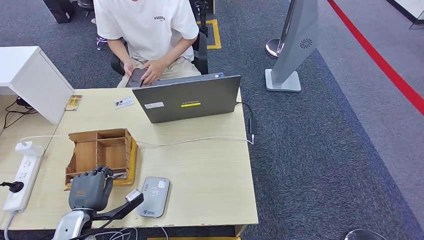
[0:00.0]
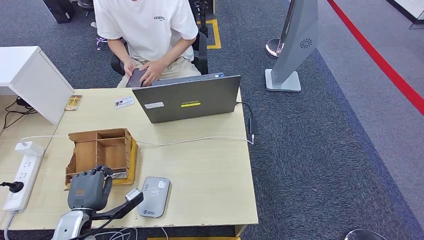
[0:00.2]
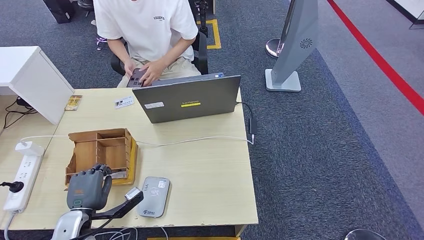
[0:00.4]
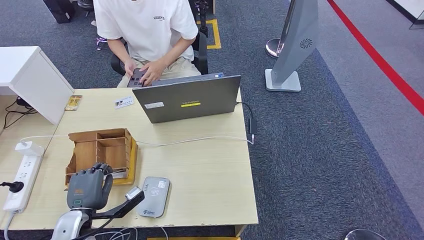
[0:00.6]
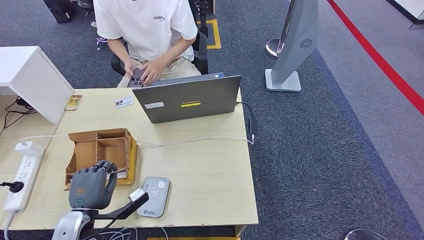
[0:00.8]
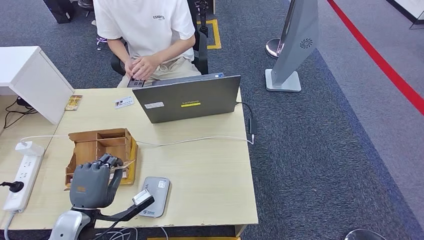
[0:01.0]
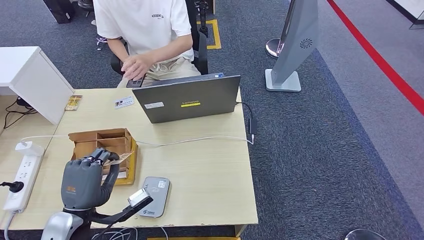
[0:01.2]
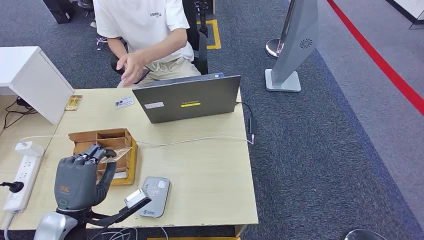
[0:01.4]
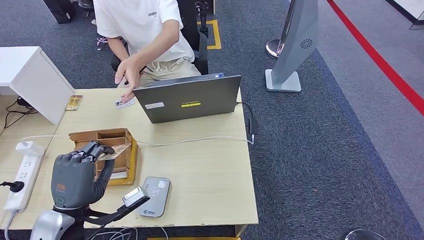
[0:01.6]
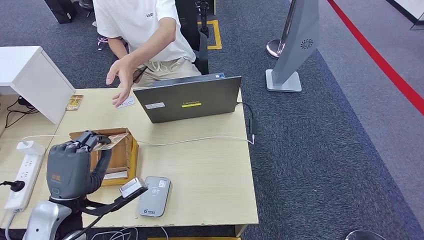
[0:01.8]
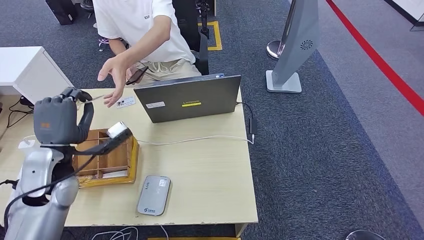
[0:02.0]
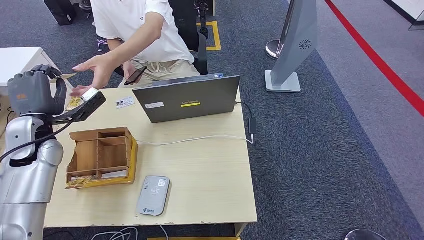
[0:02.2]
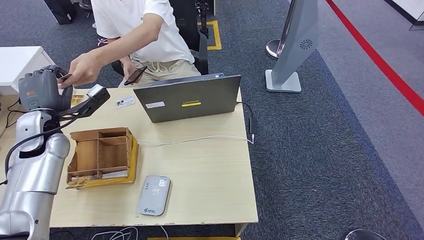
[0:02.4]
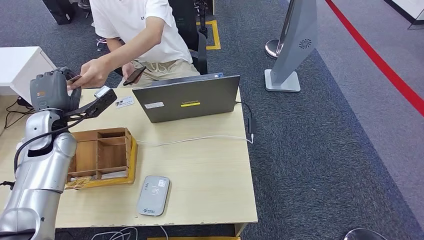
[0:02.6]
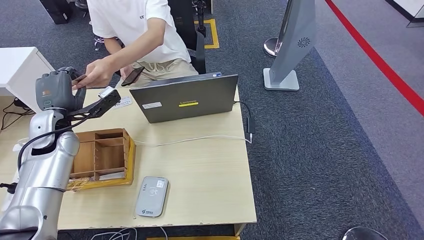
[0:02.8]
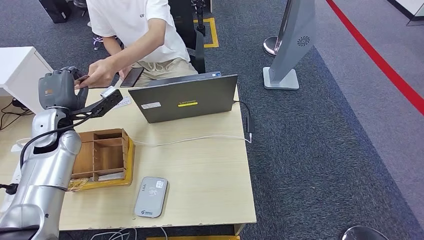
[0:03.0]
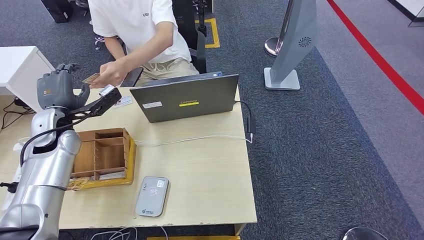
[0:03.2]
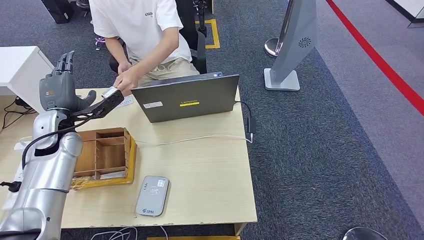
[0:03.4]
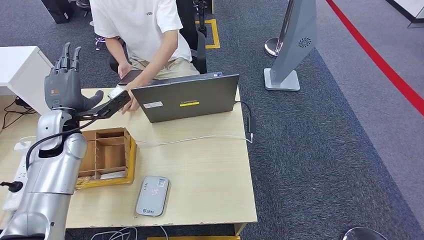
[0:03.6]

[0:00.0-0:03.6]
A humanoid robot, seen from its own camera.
Step, 0.2 to 3.6 s: Hand the room key to the person.
0.0 to 1.8 s: The left hand goes about 15 cm upward.

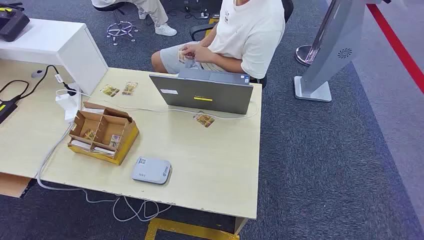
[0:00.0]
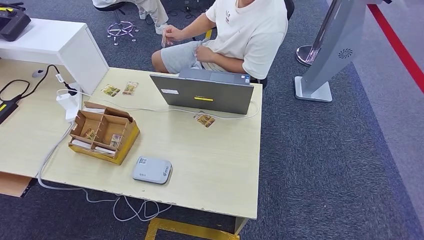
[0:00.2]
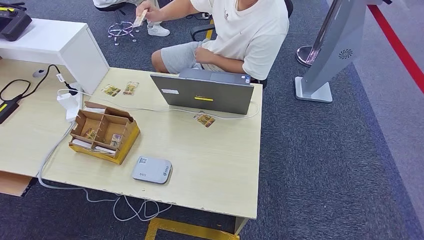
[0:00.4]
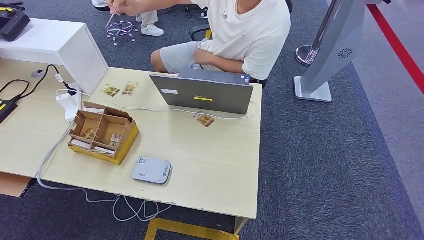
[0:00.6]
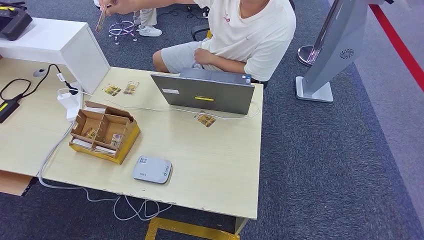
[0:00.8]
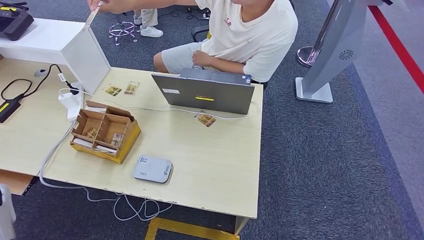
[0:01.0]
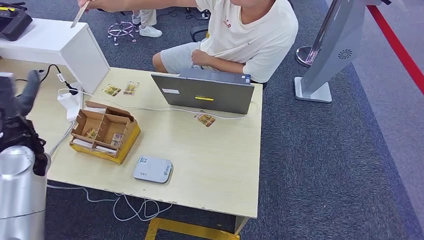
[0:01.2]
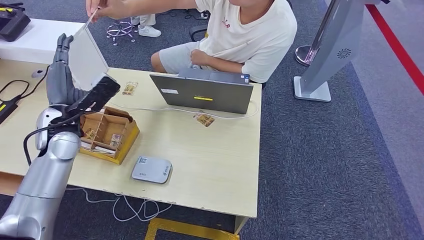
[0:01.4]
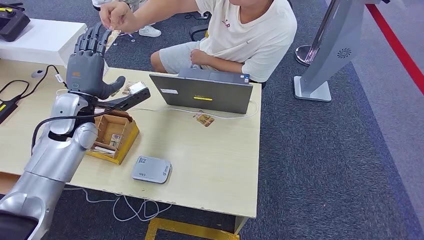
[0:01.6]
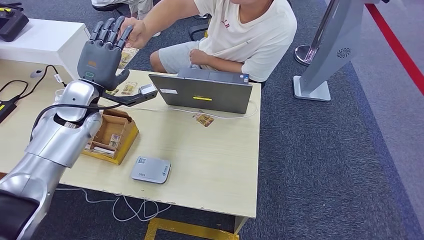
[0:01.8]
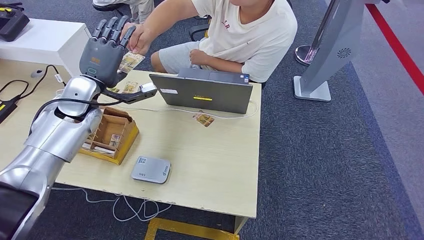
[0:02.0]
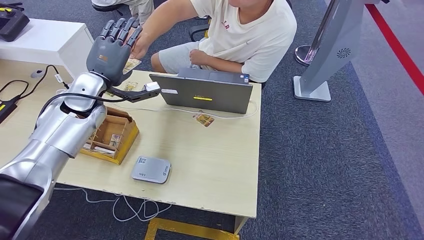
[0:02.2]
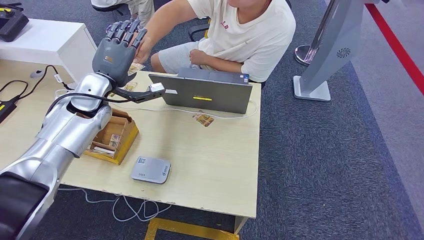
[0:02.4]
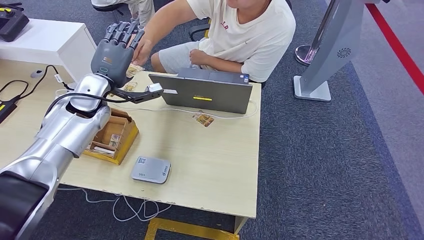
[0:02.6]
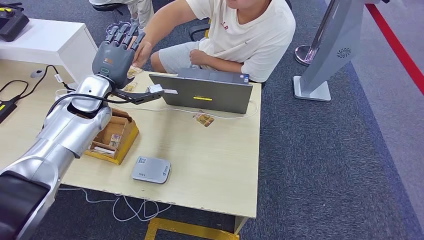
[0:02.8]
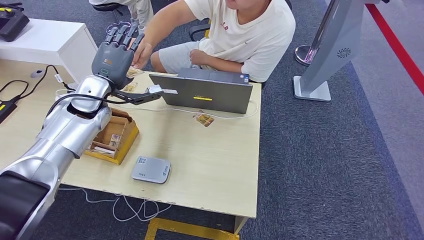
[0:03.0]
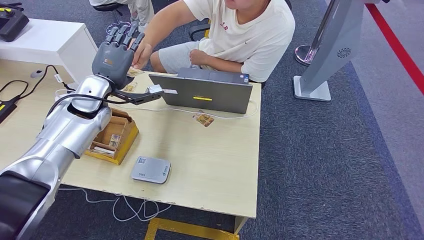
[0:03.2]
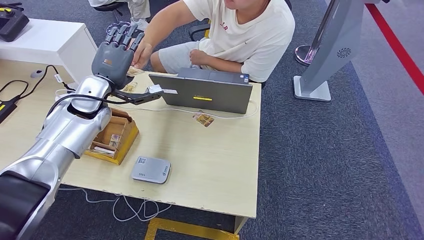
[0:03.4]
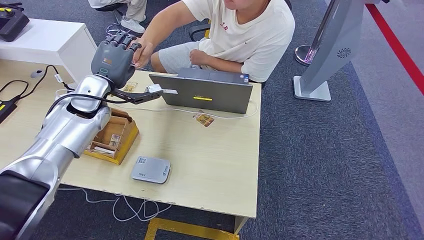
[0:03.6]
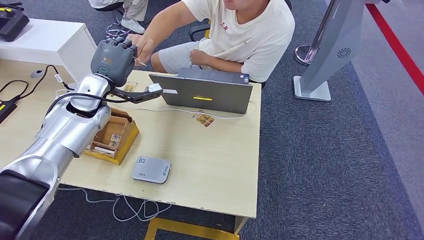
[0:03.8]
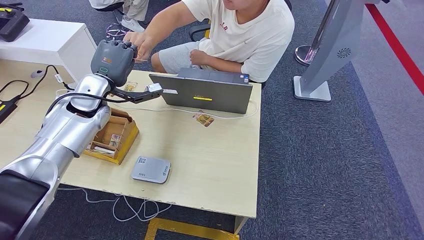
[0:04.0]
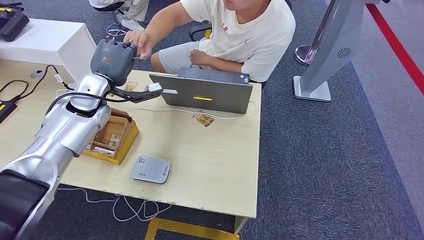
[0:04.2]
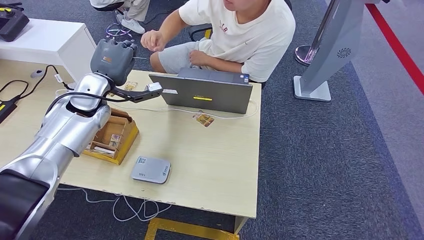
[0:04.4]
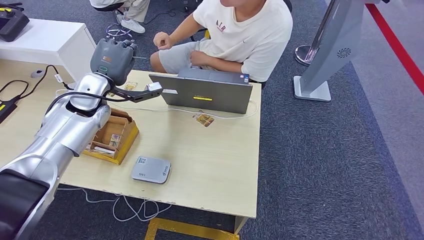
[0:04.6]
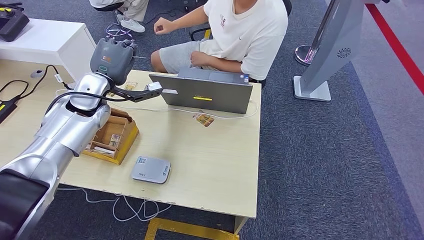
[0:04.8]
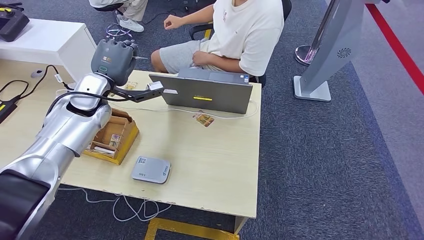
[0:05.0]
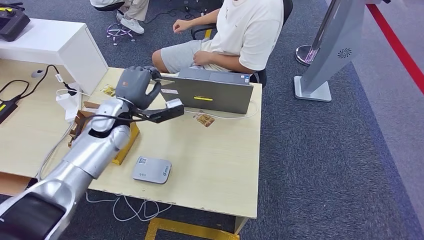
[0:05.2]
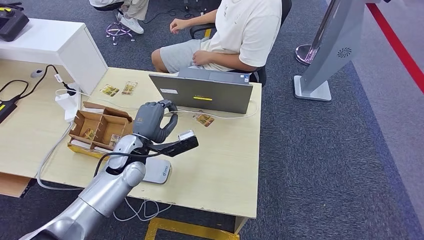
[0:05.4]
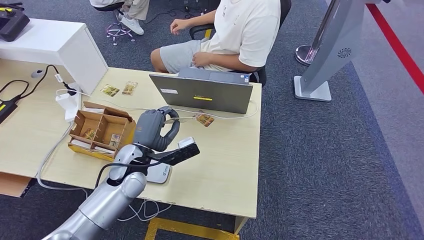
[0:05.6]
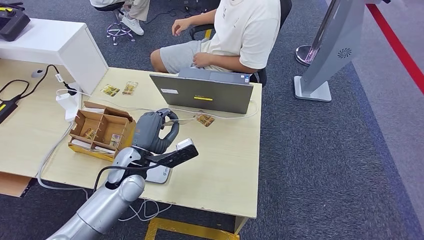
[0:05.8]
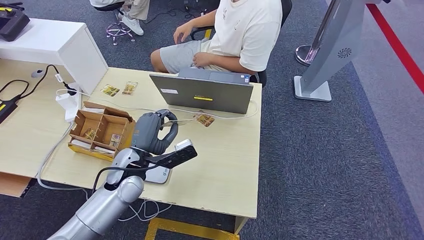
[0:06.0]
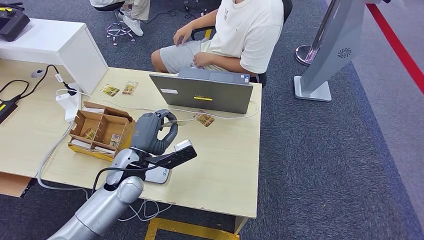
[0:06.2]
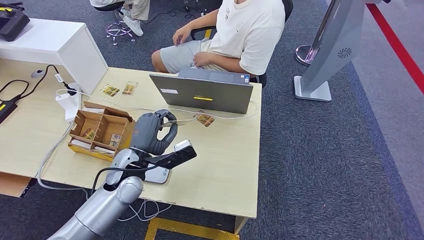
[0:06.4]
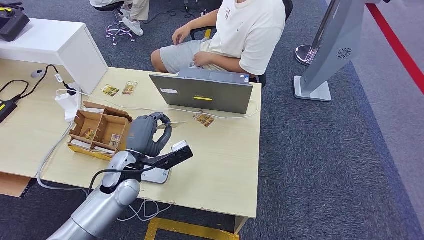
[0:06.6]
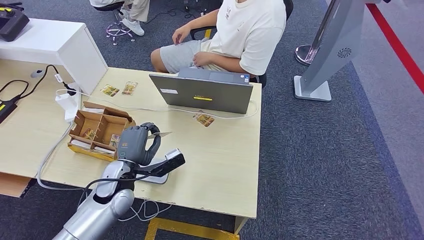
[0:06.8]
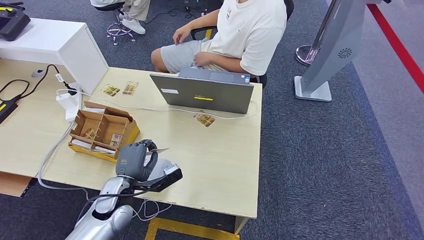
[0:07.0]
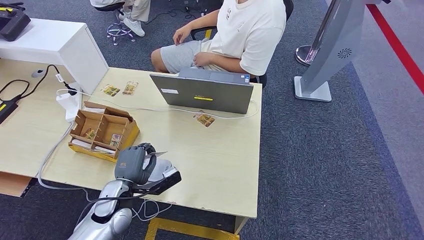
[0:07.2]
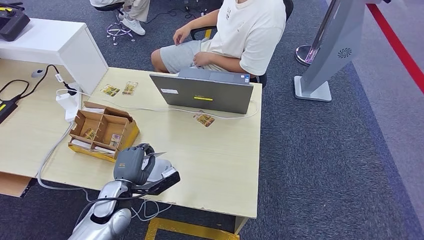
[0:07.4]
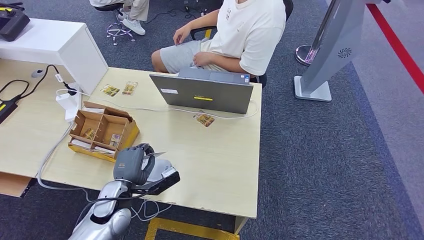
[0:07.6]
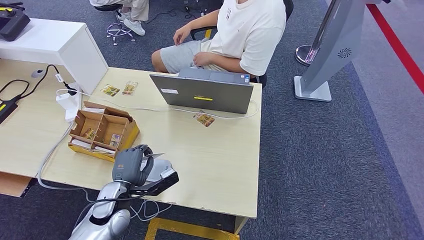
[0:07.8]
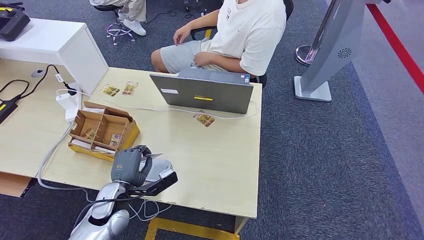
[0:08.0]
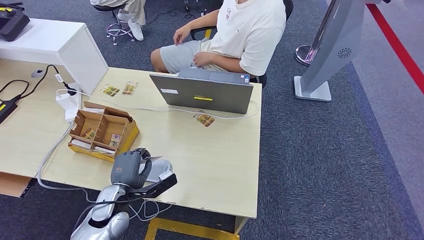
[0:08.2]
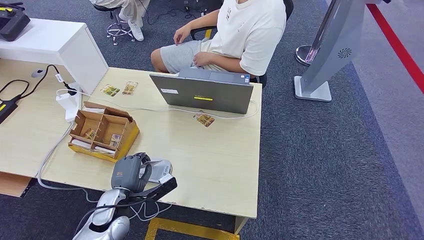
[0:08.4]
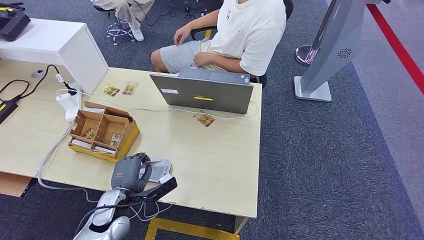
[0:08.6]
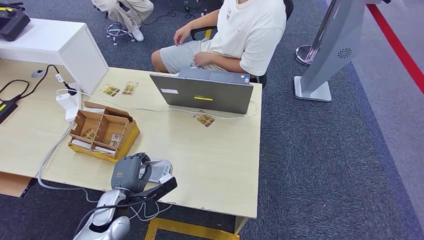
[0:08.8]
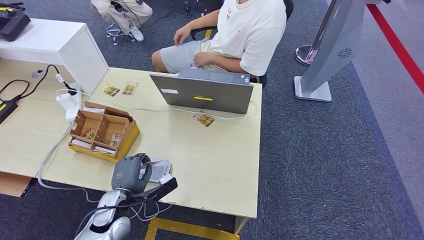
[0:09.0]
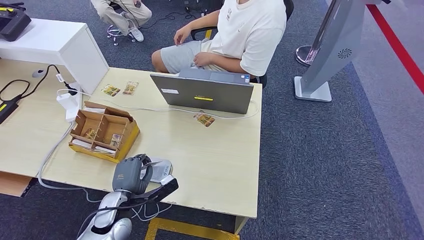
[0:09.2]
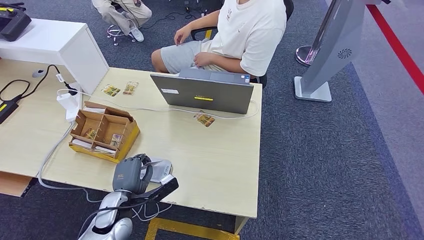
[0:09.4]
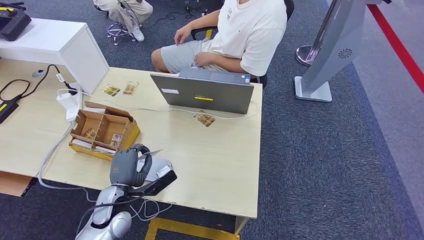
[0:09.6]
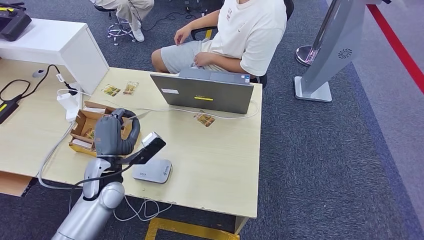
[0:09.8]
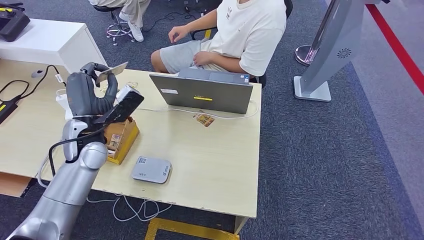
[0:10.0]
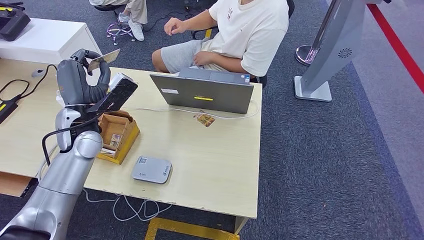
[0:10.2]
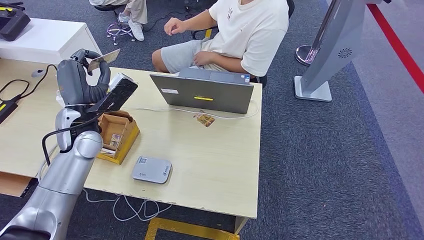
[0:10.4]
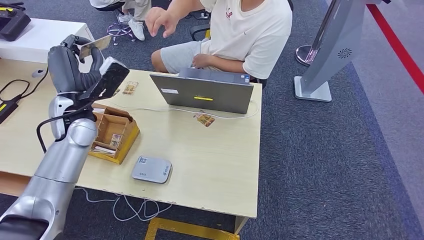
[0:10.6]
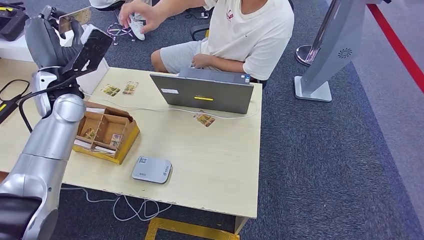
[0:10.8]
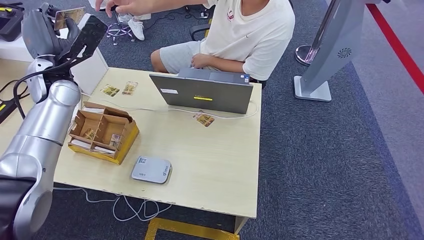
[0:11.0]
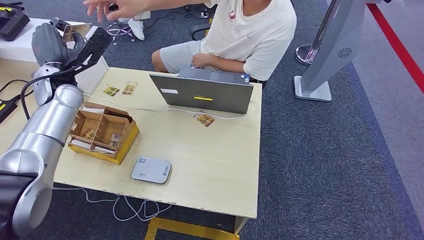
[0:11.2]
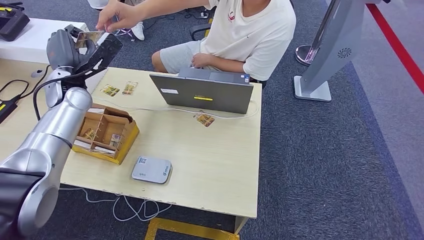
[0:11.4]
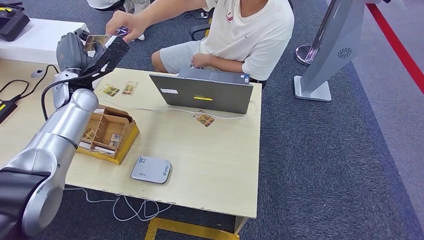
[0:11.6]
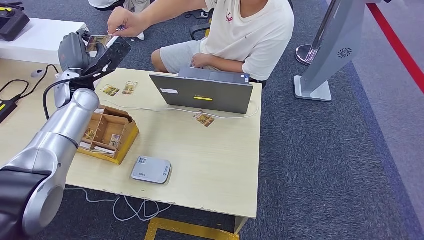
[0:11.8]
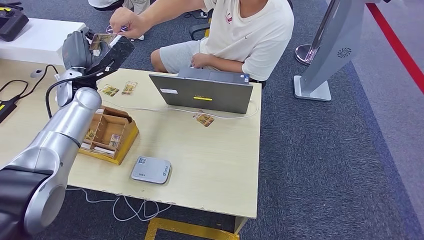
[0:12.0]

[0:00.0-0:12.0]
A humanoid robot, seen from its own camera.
Step, 0.0 to 4.4 s: Take the ID card from the person's hand.
Step, 4.6 to 9.0 s: Place the ID card on the card reader.
1.6 to 3.0 s: The left hand travels forward by about 5 cm.
3.0 to 4.4 s: Neither hand changes place.
6.0 to 7.6 s: The left hand goes roughly 10 cm downward and backward.
7.6 to 9.0 s: The hands make only small movements.
9.0 to 10.4 s: The left hand shifts some 25 cm upward and forward.
10.4 to 12.0 s: The left hand shifts some 10 cm forward.

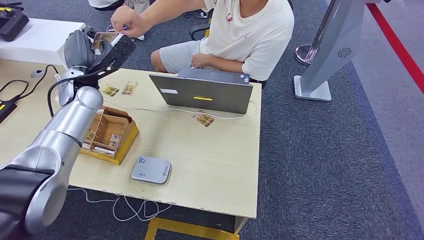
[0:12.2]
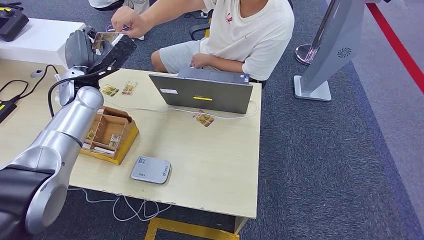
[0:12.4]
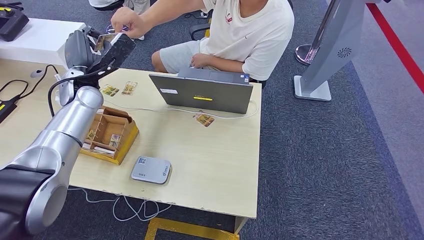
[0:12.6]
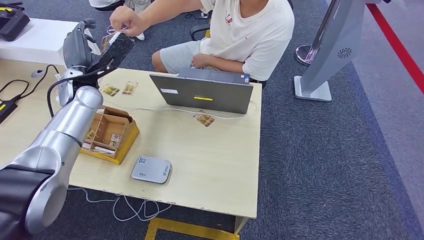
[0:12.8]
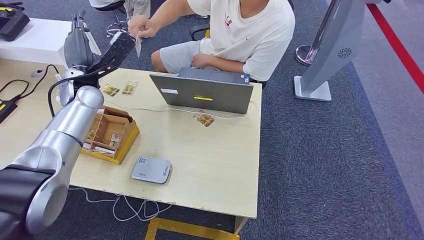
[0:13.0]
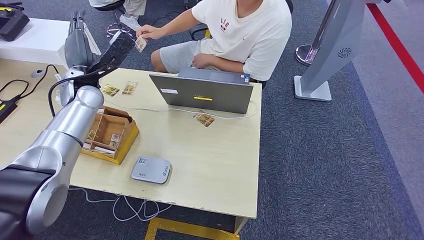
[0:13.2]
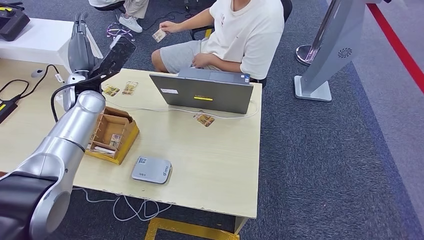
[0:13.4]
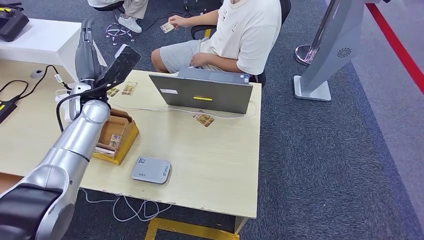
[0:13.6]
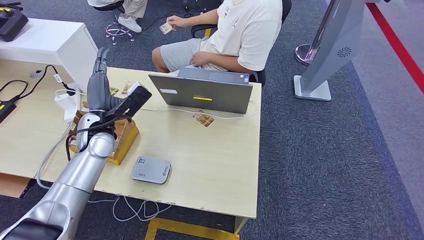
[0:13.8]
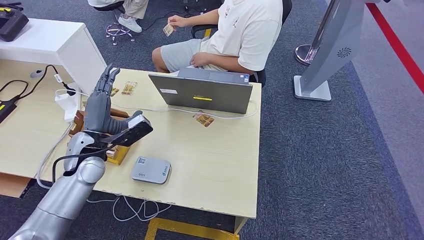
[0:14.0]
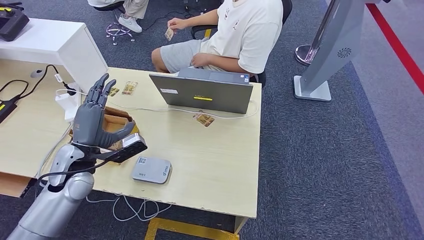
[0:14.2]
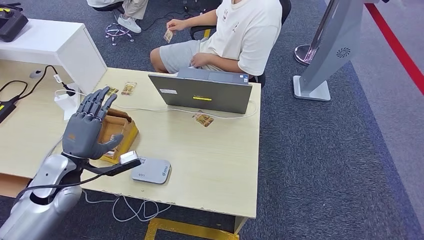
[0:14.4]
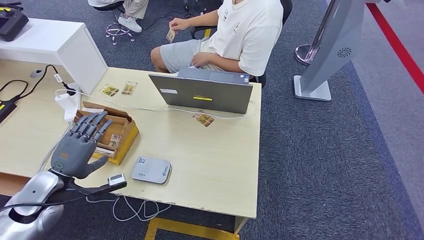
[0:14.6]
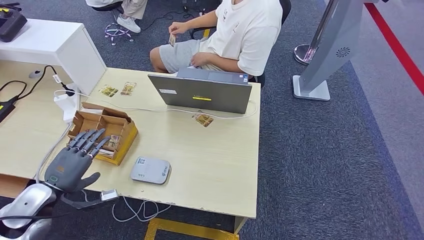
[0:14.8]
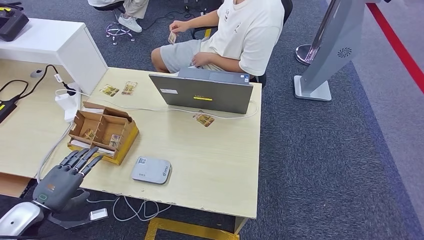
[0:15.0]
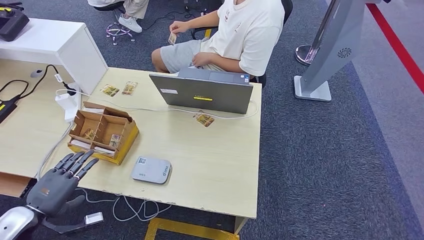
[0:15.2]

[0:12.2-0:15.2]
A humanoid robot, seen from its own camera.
Step, 12.2 to 14.2 s: Hand the ID card to the person.
12.2 to 13.8 s: The left hand goes about 10 cm downward and backward.
13.8 to 15.2 s: The left hand heads backward and to the left, covering about 25 cm.
